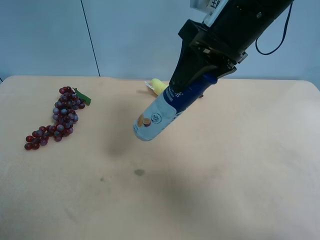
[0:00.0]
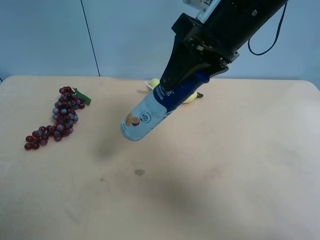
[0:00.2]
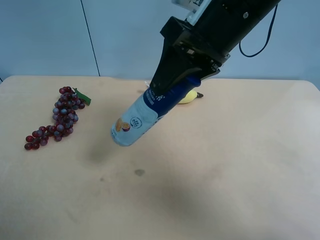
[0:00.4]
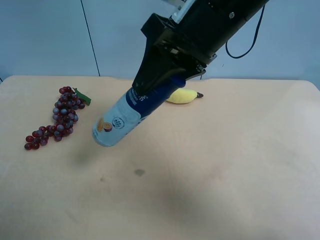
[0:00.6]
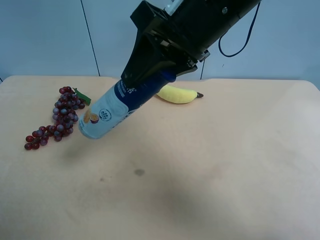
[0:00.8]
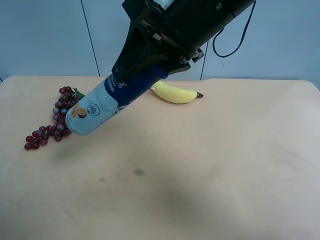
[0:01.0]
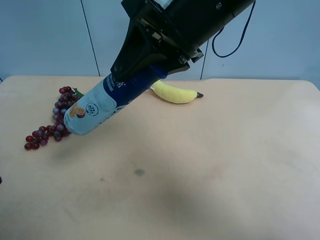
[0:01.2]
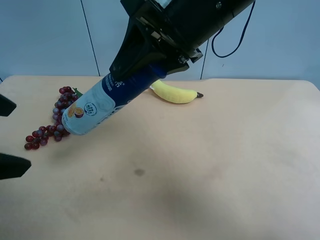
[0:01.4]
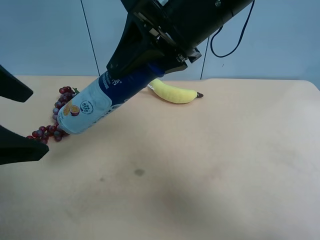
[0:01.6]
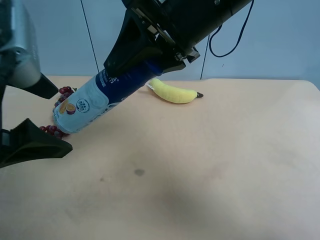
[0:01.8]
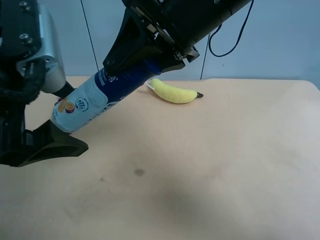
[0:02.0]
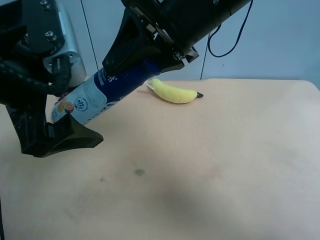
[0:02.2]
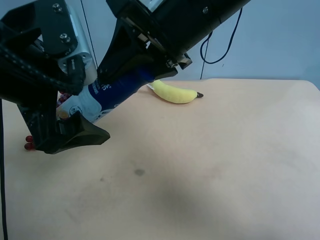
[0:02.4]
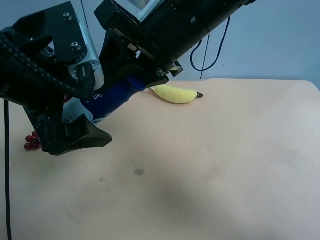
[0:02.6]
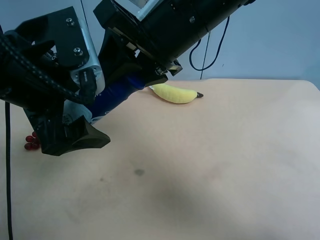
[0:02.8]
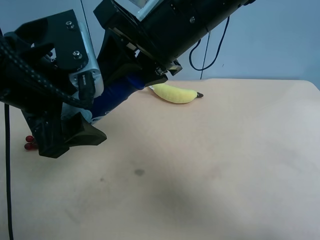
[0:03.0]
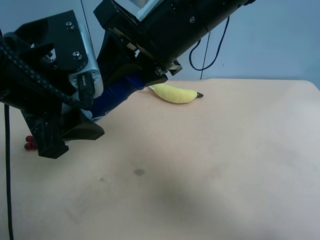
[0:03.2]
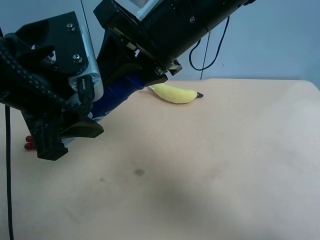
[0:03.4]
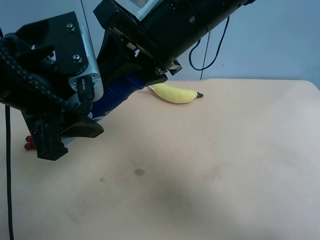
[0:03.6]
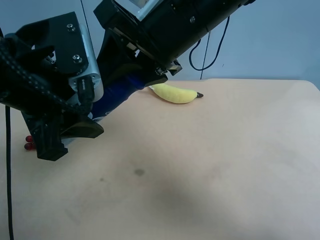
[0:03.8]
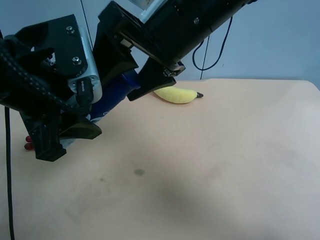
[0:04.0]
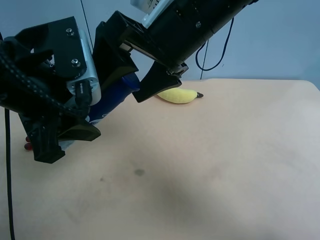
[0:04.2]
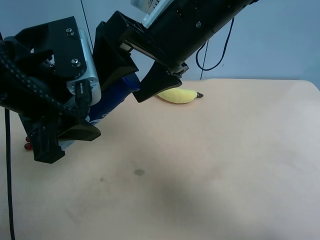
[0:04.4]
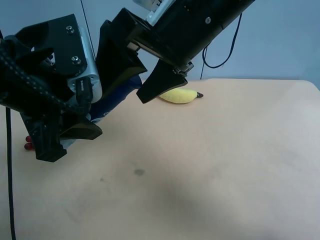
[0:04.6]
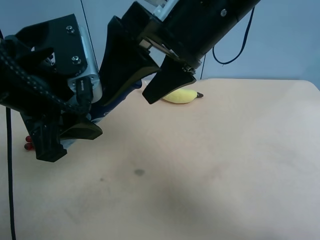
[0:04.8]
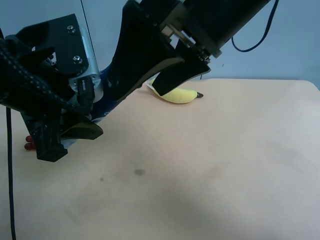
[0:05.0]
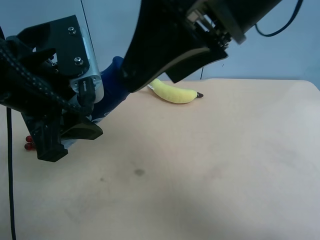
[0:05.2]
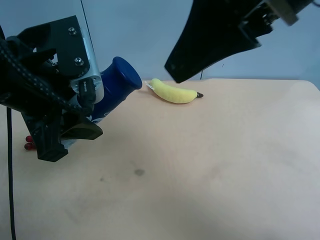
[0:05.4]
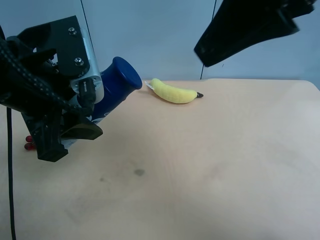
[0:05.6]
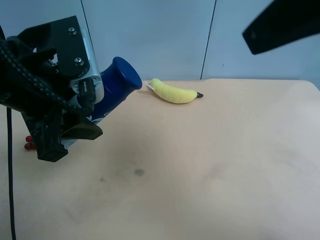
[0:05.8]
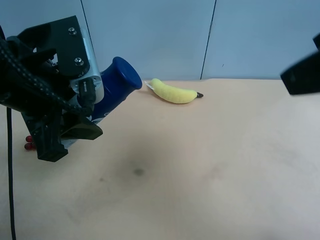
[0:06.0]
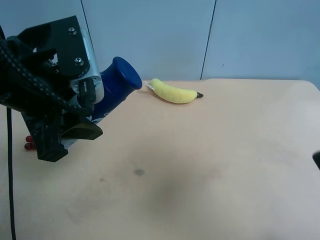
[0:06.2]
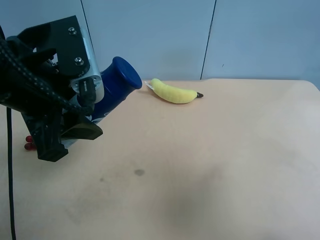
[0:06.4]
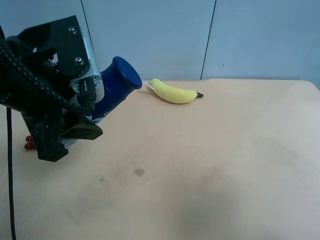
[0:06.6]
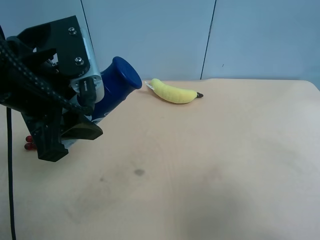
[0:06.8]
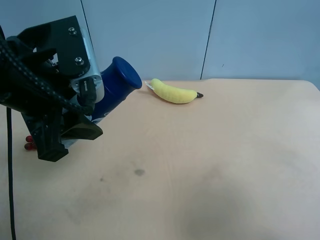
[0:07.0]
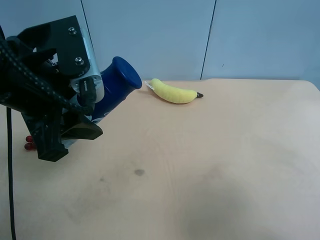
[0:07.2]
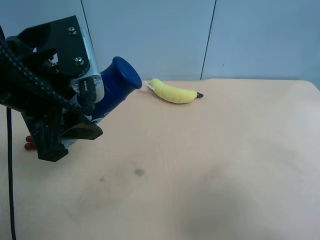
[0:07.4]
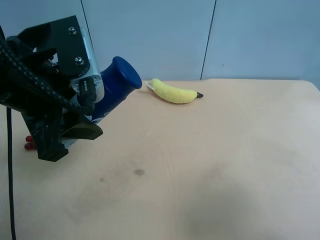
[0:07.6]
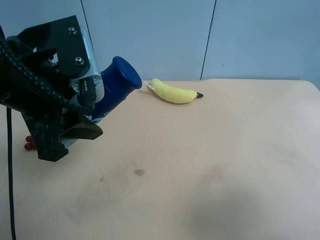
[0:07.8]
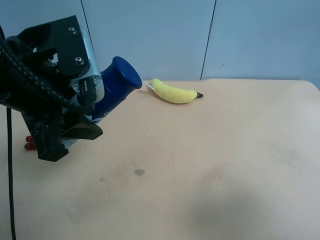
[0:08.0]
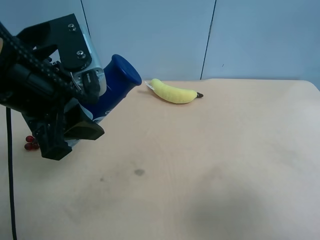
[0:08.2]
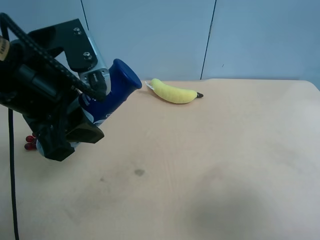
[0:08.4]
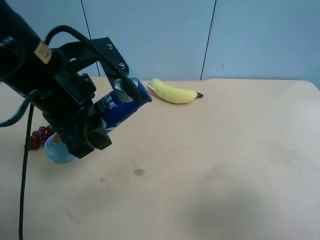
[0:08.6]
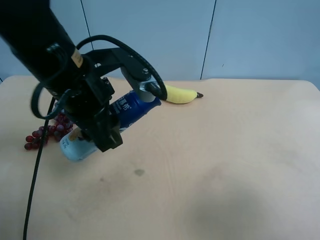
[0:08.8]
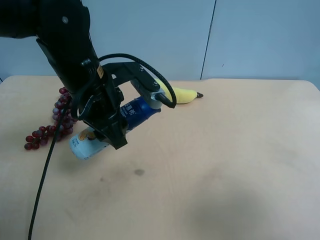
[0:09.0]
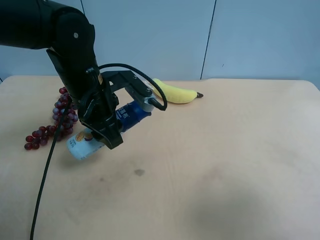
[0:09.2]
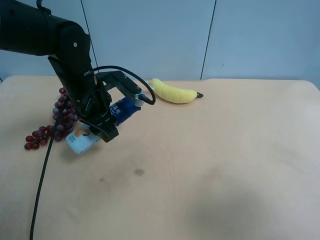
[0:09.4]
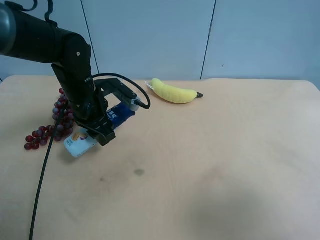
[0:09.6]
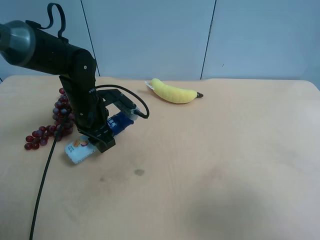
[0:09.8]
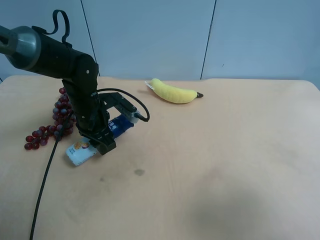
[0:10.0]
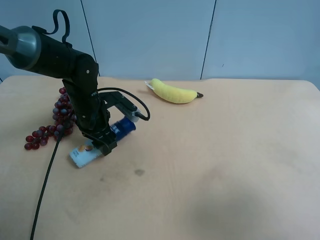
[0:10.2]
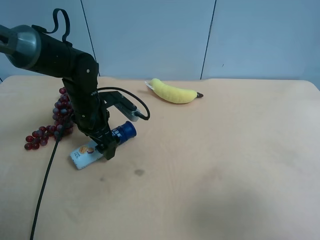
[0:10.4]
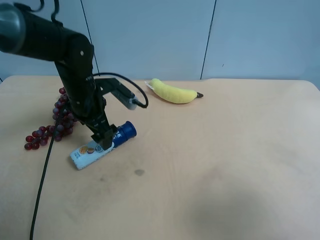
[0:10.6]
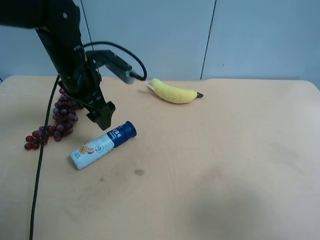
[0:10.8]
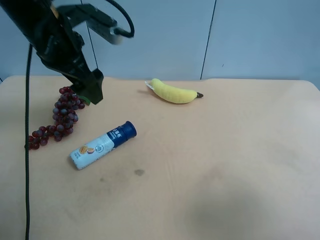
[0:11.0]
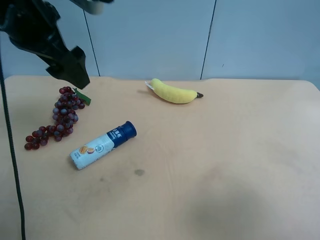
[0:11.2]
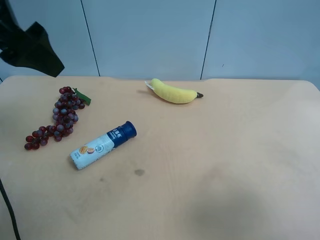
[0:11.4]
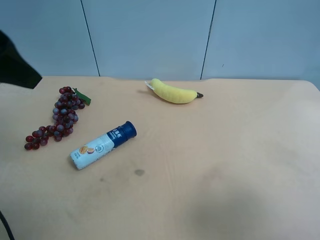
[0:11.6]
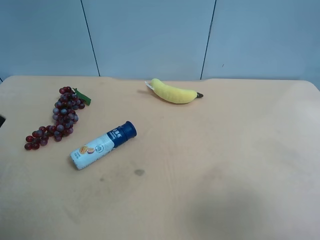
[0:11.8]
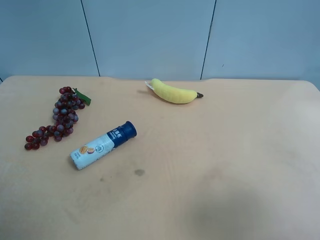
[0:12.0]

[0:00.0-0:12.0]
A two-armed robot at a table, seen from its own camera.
Task of the whole recording: use the right gripper to pick up the item and transfer it from the right gripper to the left gripper.
0:00.0 to 0:01.6: The left gripper is displaced forward, to the right and upward by some 15 cm. Meanwhile the right gripper goes roughly 5 cm to the left.
0:01.6 to 0:03.0: The left gripper moves to the right, some 5 cm, and closes up.
0:03.0 to 0:04.4: The right gripper opens its fingers, while the left gripper closes up.
0:04.4 to 0:06.0: The right gripper goes roughly 25 cm to the right, backward and upward.
0:06.0 to 0:07.6: The right gripper goes approximately 15 cm downward, backward and to the right.
0:07.6 to 0:09.0: The left gripper is displaced forward, downward and to the right by approximately 10 cm.
0:09.0 to 0:10.4: The left gripper heads downward and forward, covering some 10 cm, and opens.
0:10.4 to 0:12.0: The left gripper moves backward, upward and to the left, about 35 cm.
